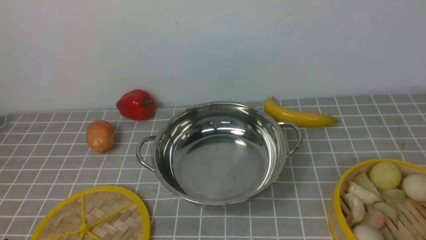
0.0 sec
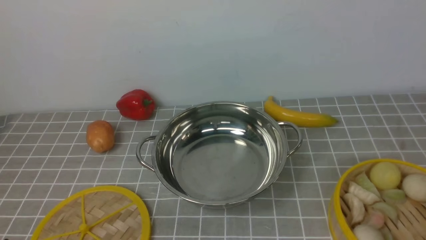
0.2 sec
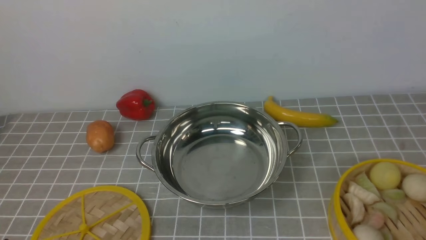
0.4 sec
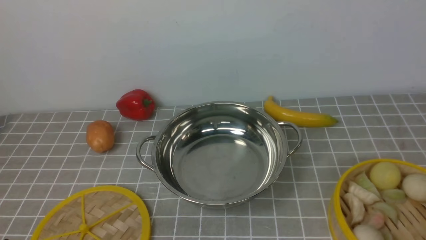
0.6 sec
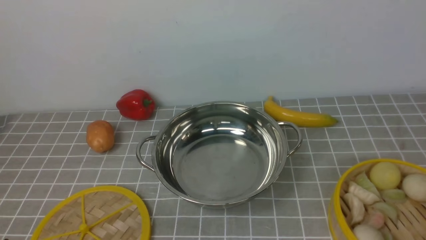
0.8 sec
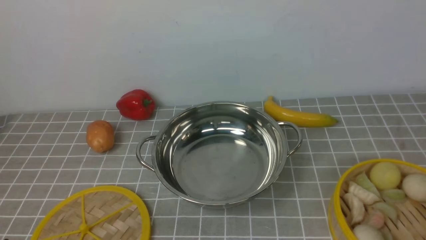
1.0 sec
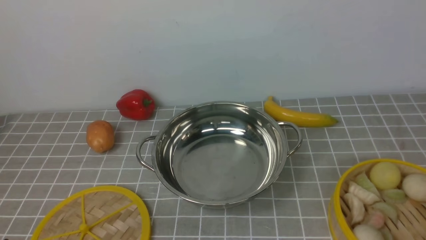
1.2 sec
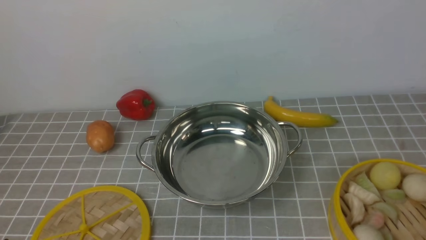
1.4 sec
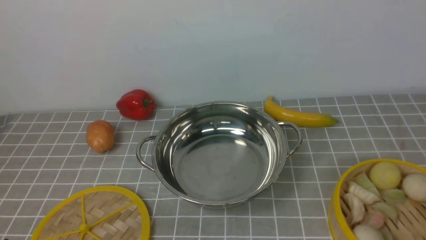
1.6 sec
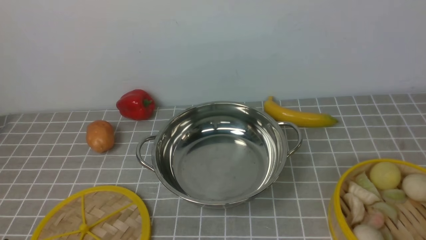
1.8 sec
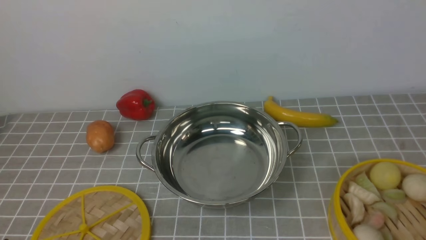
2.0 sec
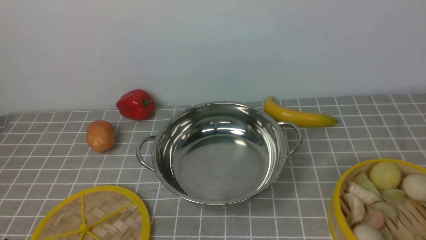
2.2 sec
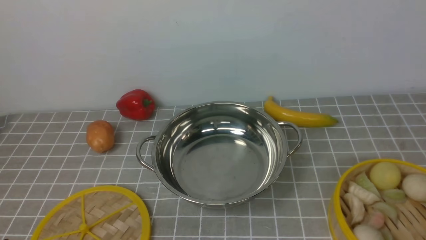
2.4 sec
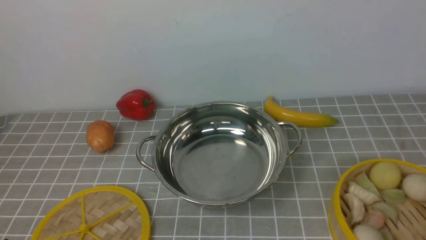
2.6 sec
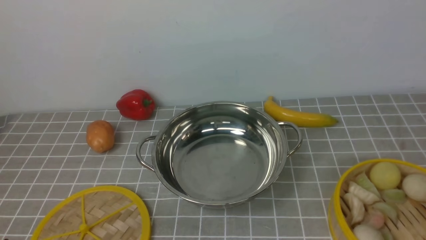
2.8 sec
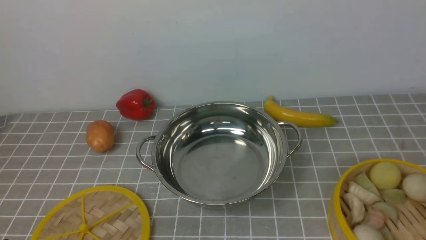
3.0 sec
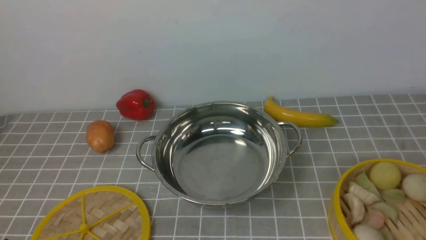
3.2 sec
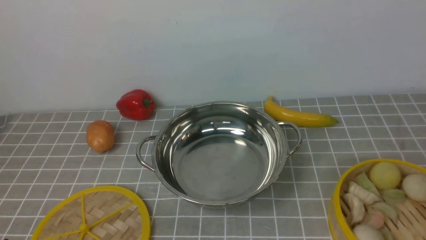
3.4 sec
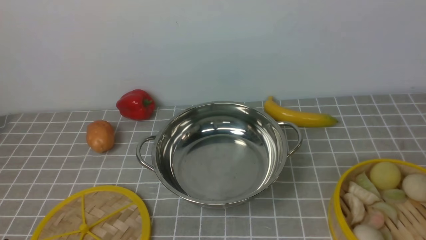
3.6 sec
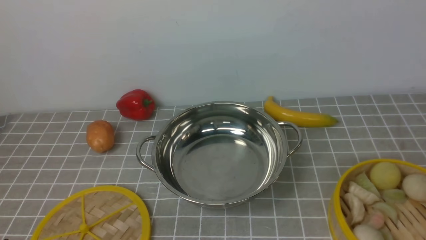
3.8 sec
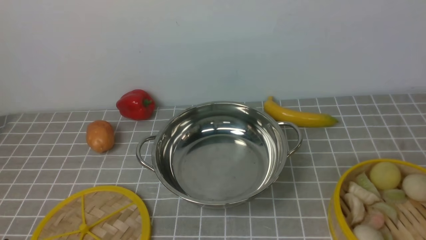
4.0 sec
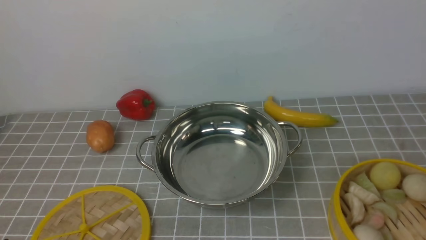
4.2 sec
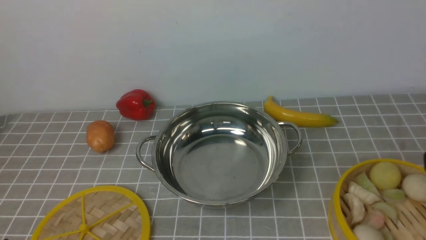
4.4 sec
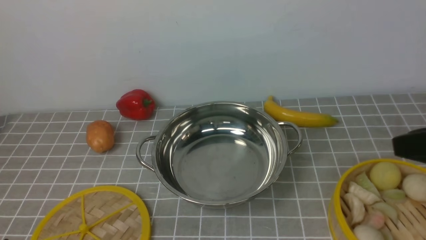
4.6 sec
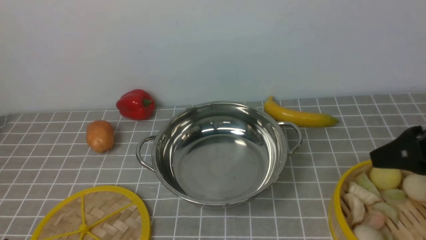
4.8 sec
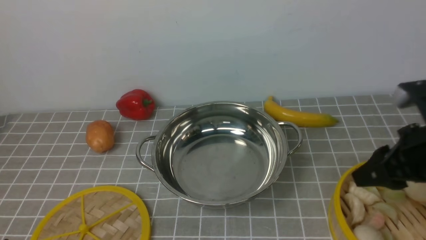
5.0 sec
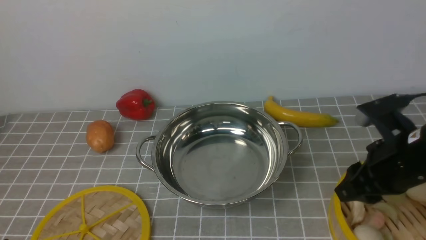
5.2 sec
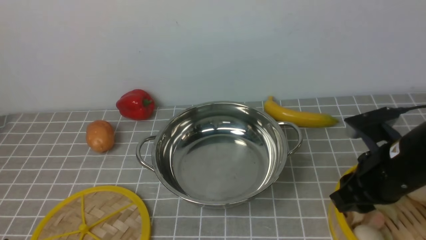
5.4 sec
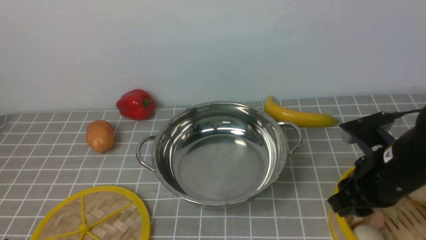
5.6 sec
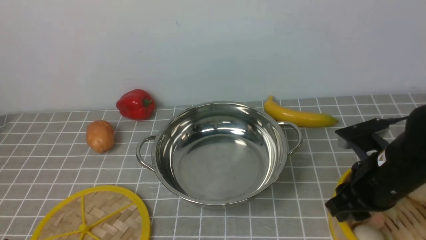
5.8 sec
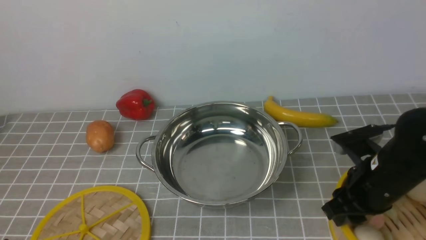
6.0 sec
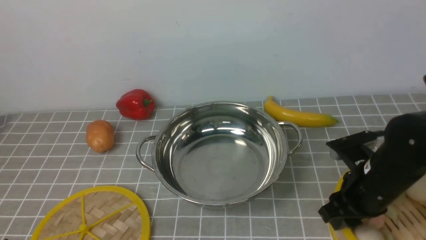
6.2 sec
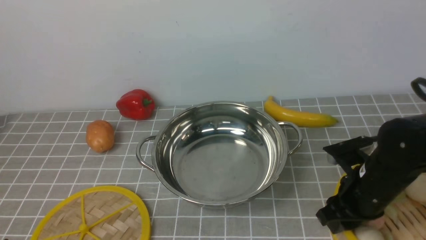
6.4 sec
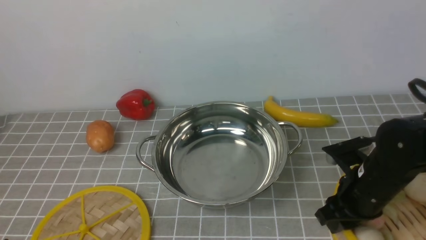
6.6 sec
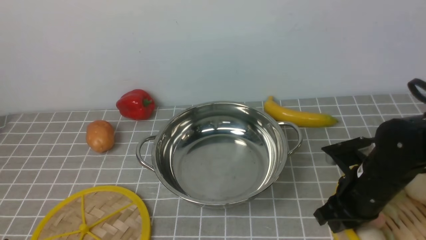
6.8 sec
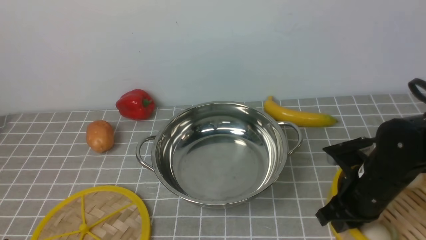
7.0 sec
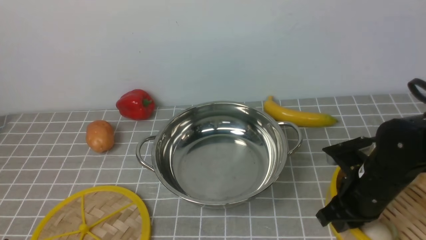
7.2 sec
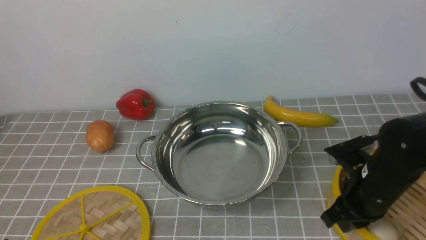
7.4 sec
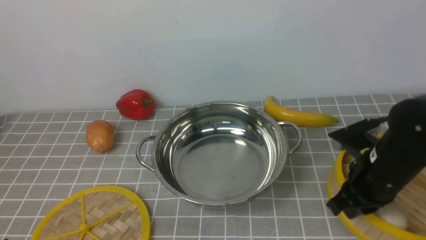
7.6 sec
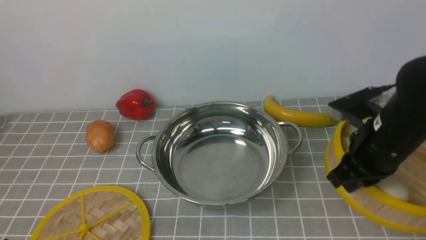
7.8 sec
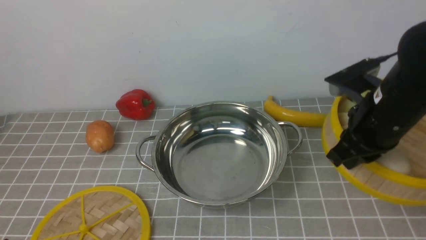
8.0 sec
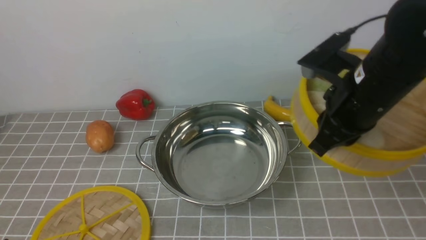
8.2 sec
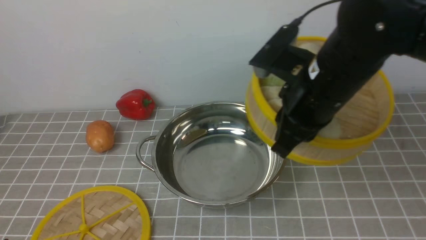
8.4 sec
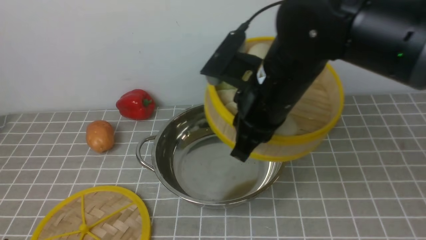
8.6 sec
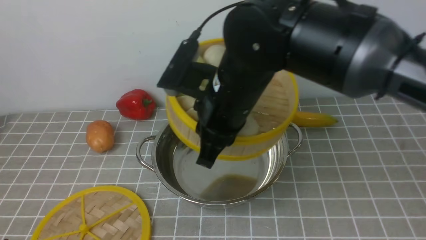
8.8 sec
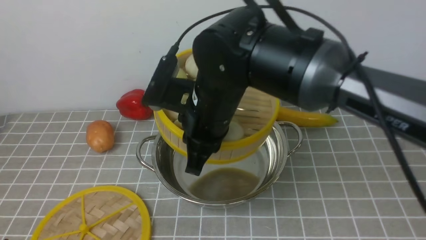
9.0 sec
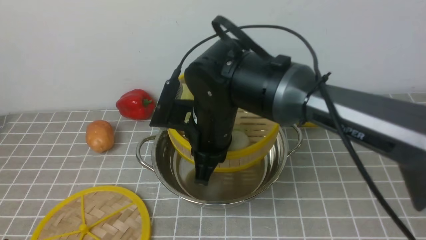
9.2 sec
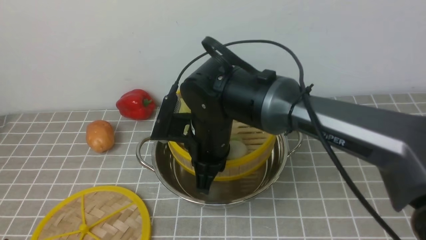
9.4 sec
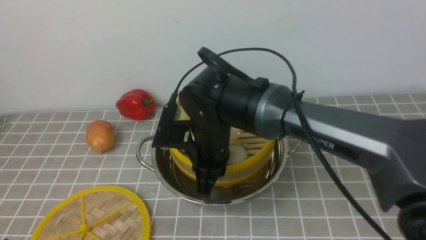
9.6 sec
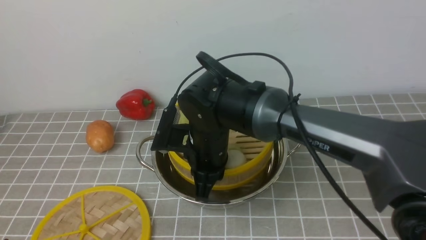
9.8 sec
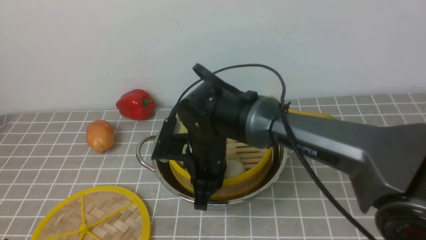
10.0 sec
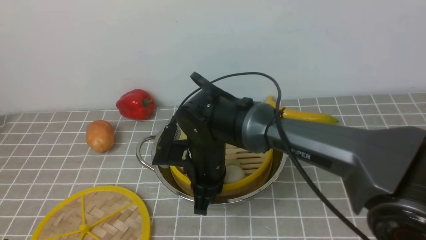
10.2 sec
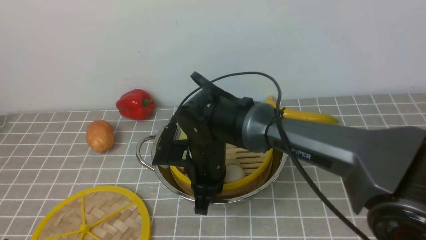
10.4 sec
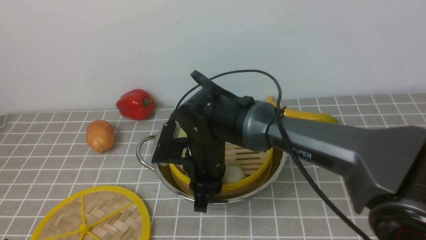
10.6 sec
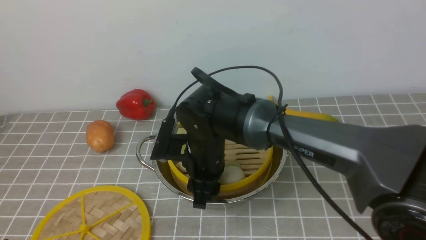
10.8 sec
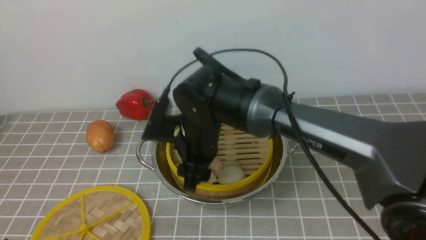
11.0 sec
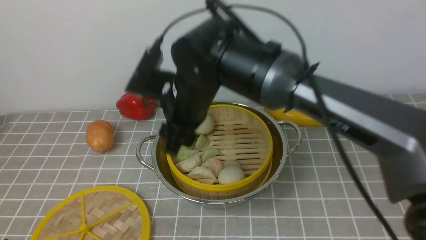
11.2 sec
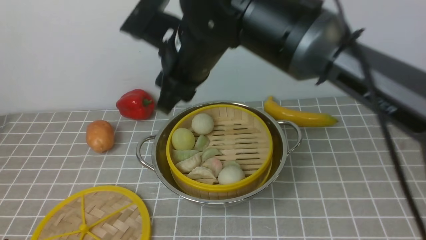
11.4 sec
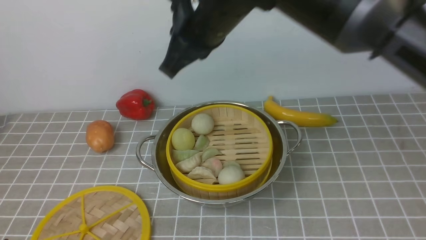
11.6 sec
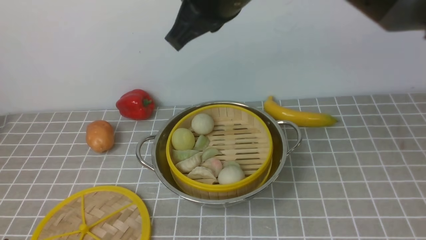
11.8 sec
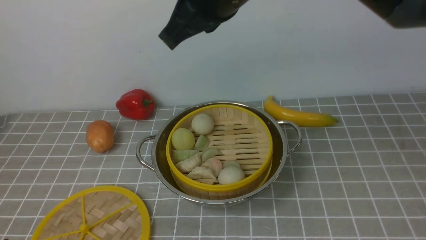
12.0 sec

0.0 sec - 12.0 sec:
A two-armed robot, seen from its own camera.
Task of the whole recording: place the steamer in the pot on the grey tablecloth, and put the lid on the steamer.
Step, 0.0 sec - 7.4 sec: use the right arm to lift the steamer closest to it.
Step, 7.8 sec - 11.0 sec: use the right arm to put the steamer into the iron steamer pot in the middle.
4.4 sec - 6.0 sec: The right gripper moves forward, downward and to the left, approximately 25 cm.
6.0 sec - 7.6 sec: The right gripper closes.
7.6 sec - 9.0 sec: The right gripper shifts about 25 cm to the left and upward.
9.0 sec - 10.4 sec: The right gripper is displaced downward by about 10 cm.
10.4 sec - 12.0 sec: The right gripper travels upward by roughly 25 cm, and opens, then closes once more.

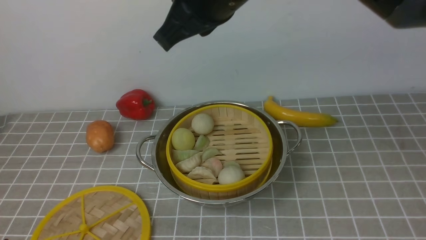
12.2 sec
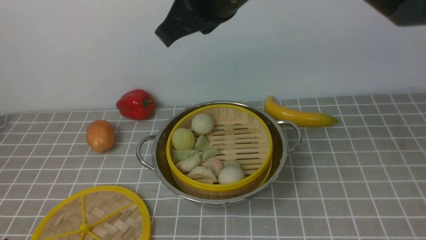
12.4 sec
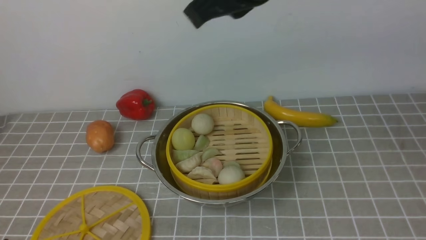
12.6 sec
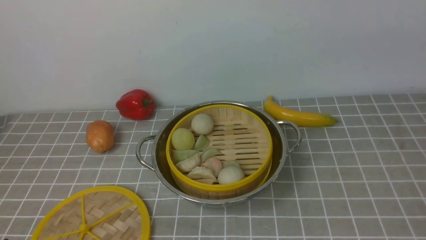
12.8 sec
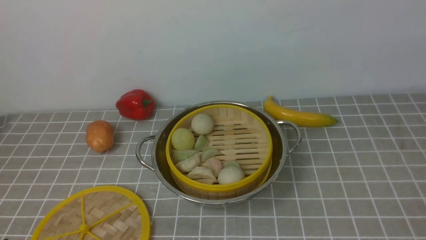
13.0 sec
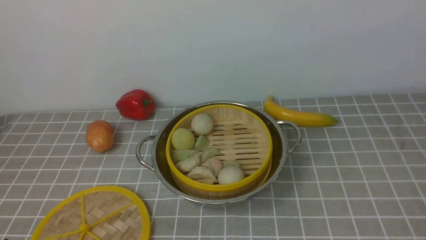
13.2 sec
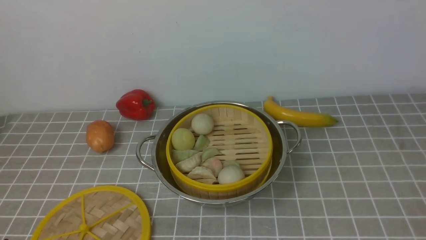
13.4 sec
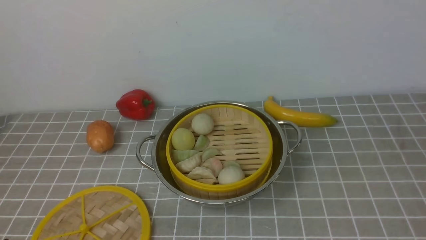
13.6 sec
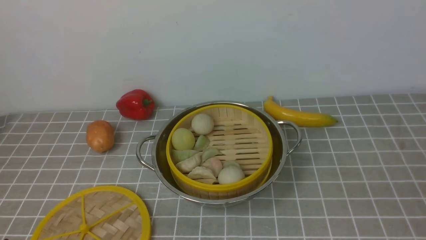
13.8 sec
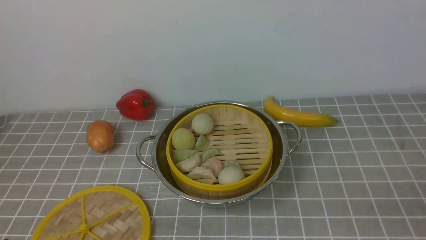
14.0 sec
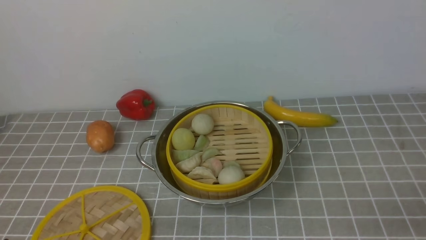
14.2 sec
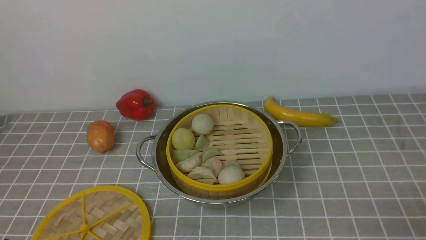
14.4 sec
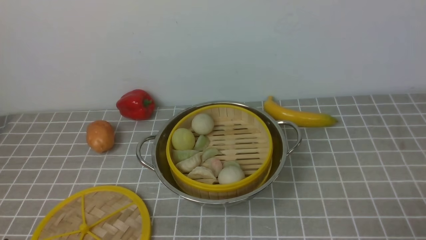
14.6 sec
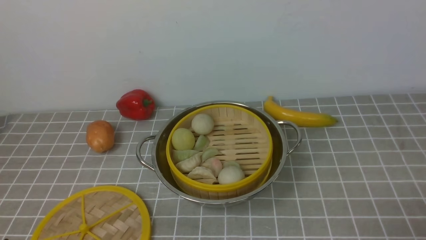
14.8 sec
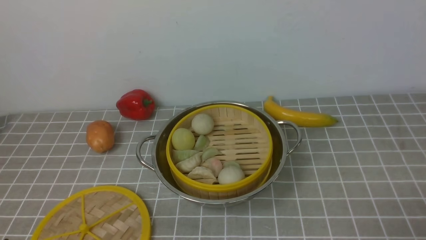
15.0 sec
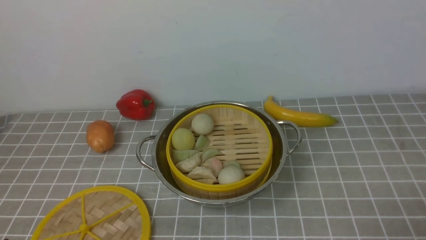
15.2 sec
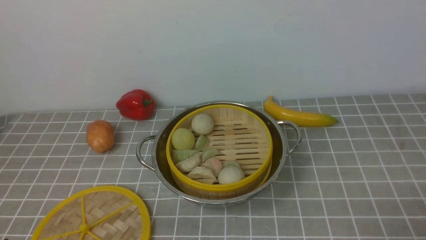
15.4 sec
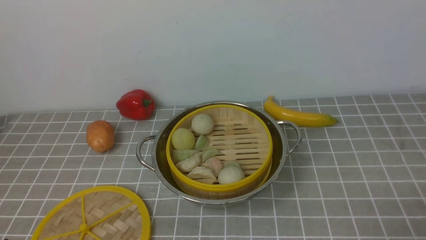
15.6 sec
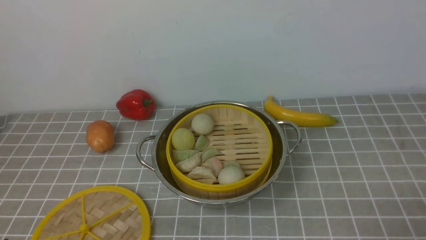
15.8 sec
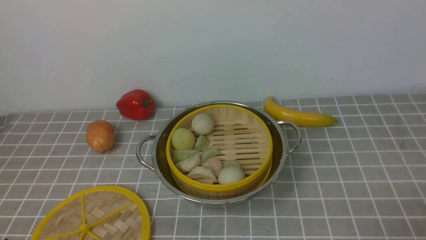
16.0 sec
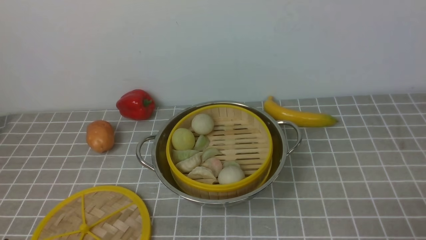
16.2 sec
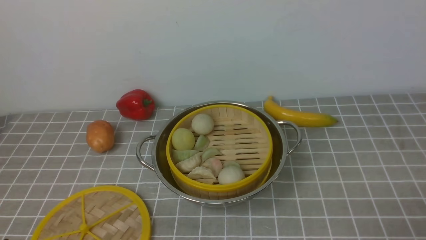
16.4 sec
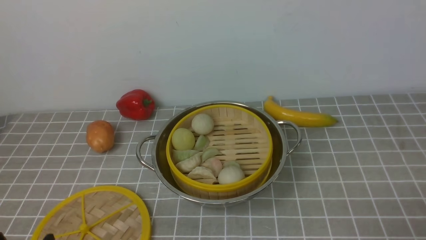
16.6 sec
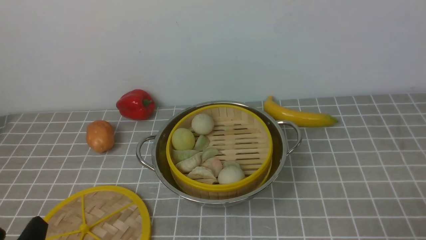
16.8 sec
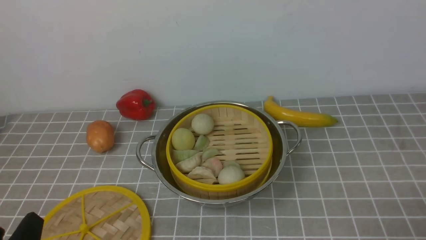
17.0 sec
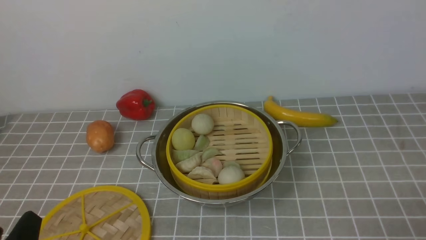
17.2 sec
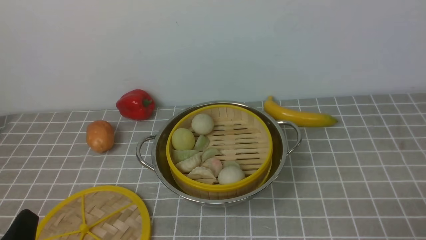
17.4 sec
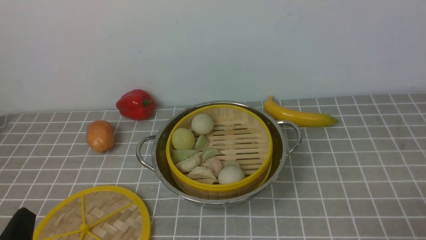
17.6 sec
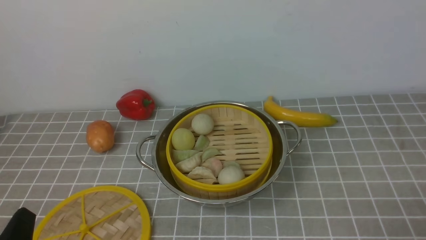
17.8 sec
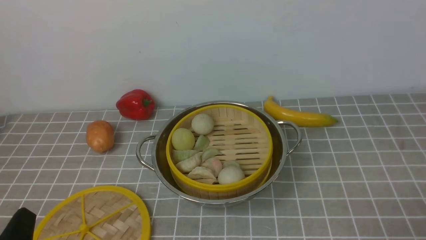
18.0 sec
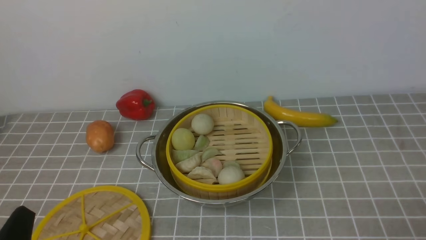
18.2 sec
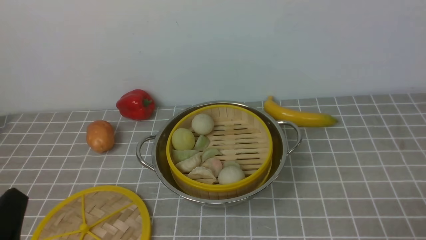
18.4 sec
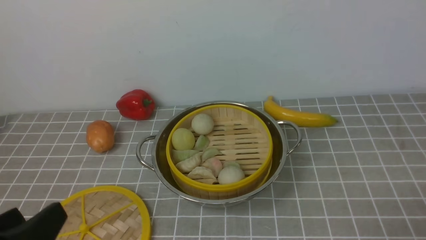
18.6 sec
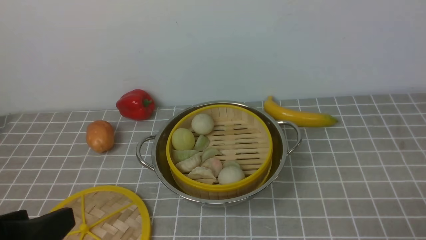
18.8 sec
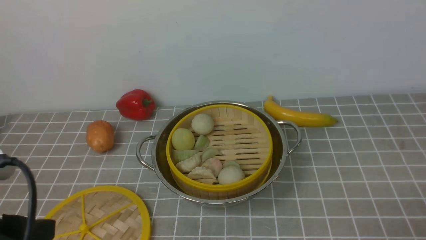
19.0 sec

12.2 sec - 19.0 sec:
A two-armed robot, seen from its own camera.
Task of the whole recording: place the steamer in the pot on the grey tablecloth, and put the lid on the steamer.
12.2 sec - 13.6 sec: The right gripper is displaced to the right and backward by some 35 cm.
17.6 sec - 19.0 sec: The left gripper goes some 10 cm upward.
